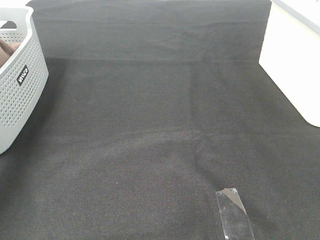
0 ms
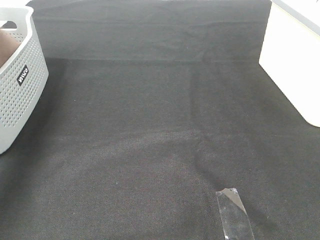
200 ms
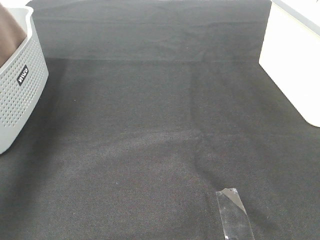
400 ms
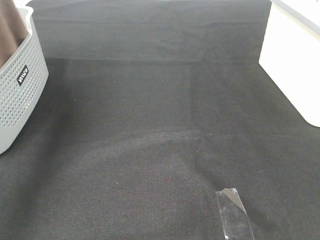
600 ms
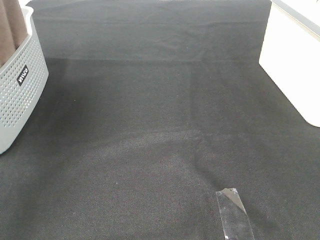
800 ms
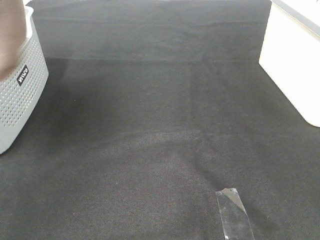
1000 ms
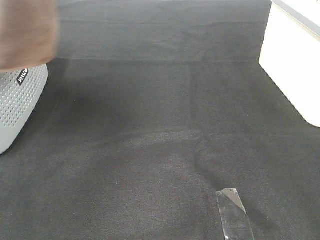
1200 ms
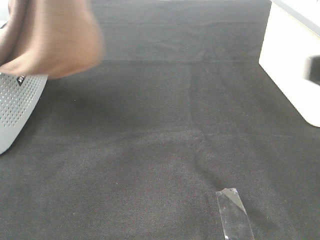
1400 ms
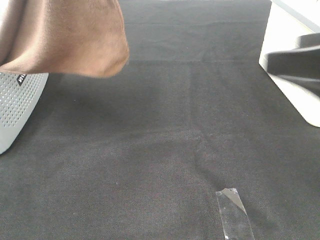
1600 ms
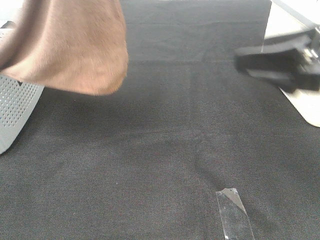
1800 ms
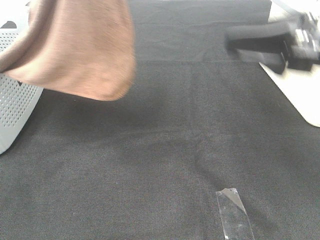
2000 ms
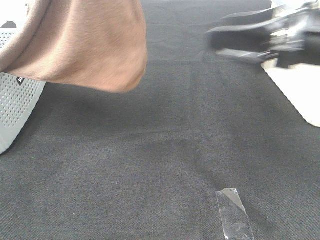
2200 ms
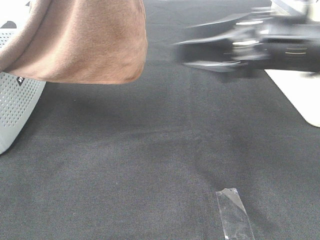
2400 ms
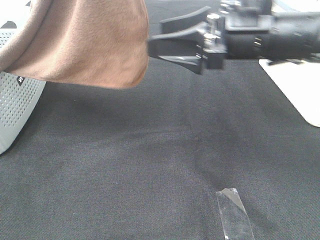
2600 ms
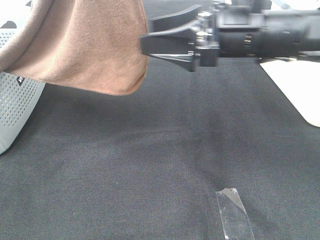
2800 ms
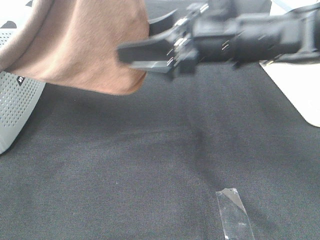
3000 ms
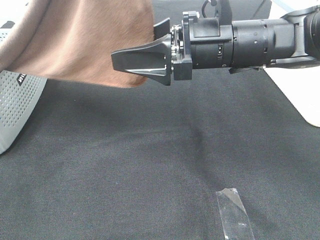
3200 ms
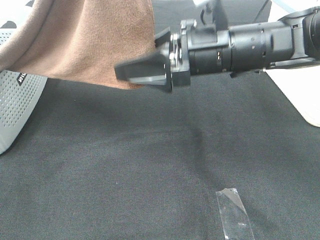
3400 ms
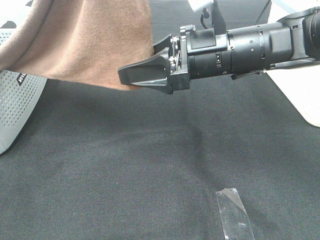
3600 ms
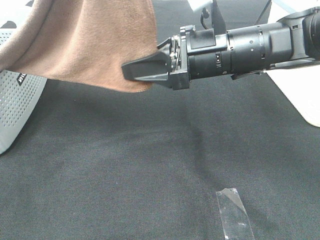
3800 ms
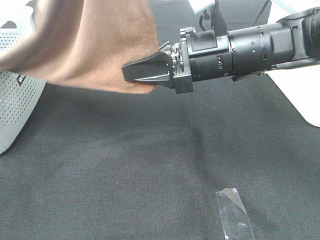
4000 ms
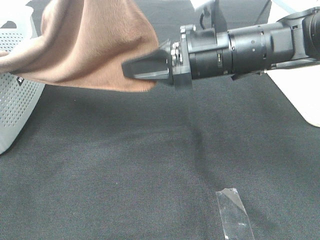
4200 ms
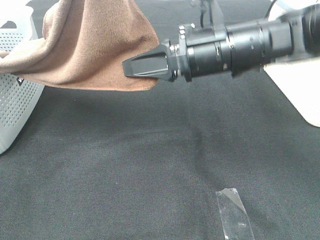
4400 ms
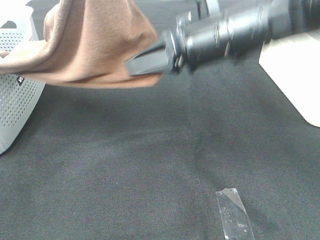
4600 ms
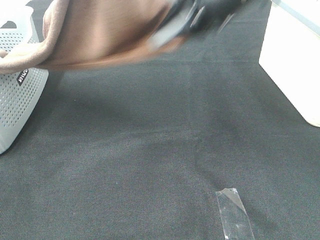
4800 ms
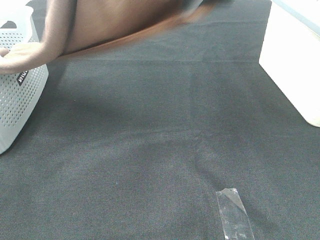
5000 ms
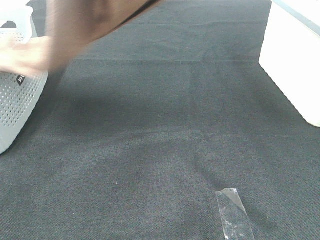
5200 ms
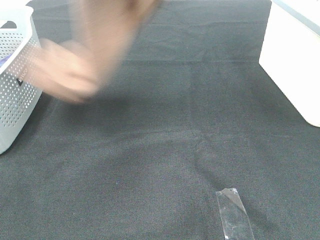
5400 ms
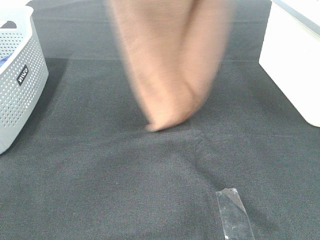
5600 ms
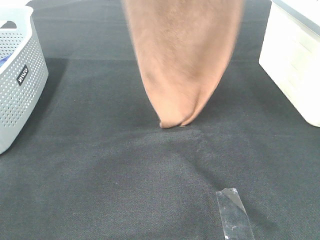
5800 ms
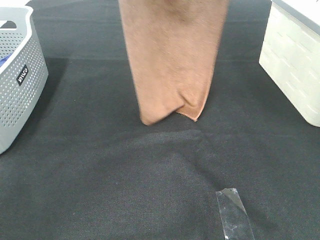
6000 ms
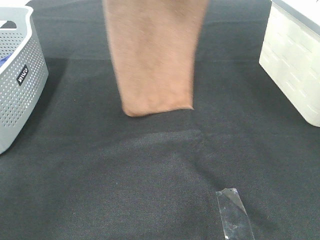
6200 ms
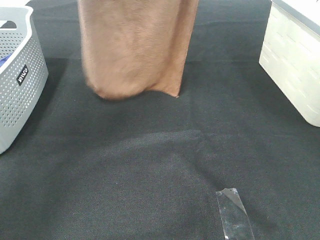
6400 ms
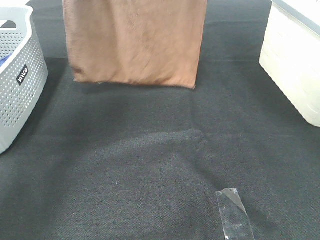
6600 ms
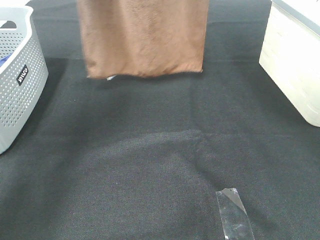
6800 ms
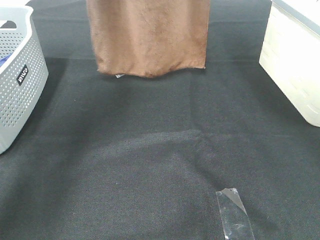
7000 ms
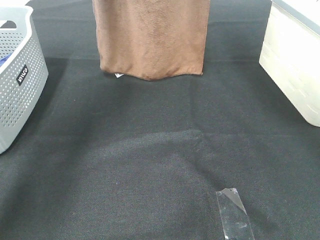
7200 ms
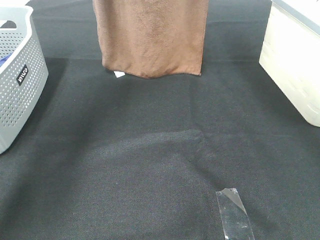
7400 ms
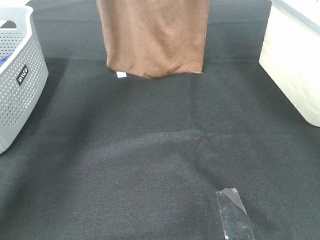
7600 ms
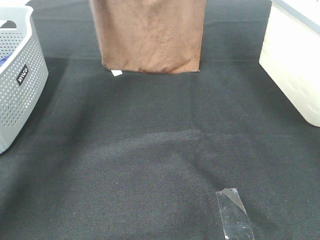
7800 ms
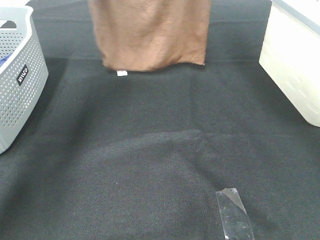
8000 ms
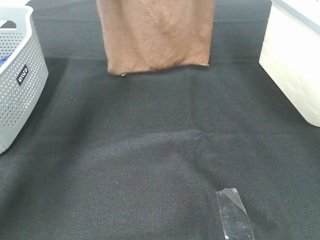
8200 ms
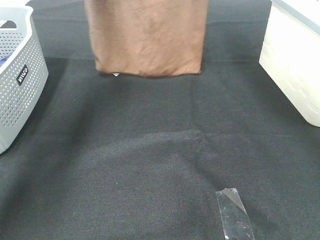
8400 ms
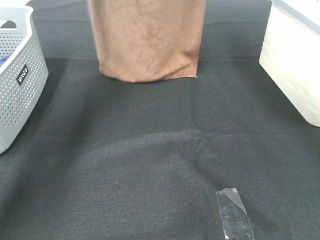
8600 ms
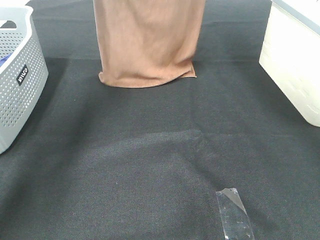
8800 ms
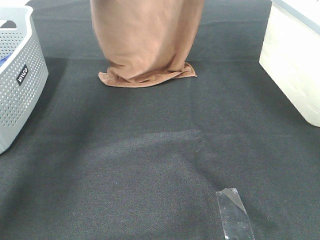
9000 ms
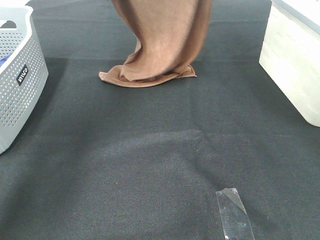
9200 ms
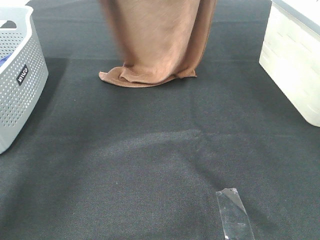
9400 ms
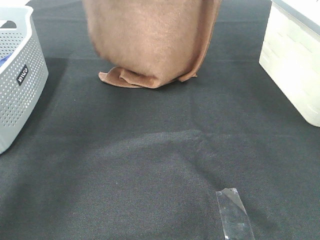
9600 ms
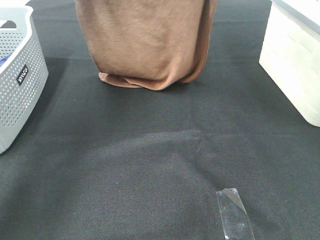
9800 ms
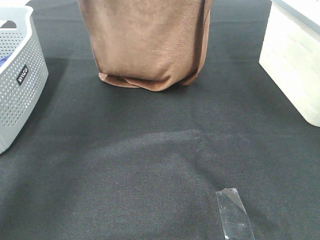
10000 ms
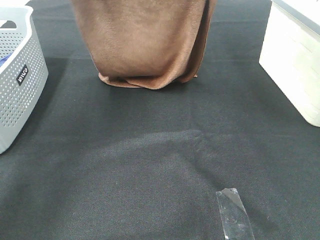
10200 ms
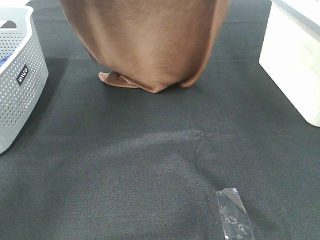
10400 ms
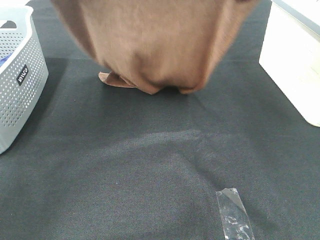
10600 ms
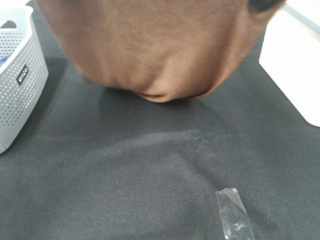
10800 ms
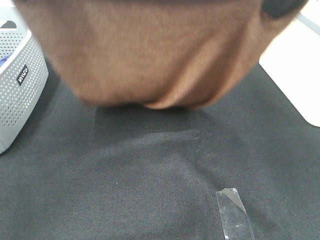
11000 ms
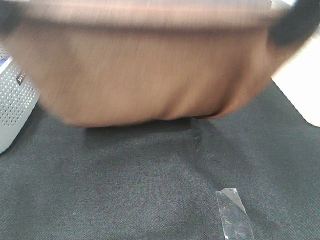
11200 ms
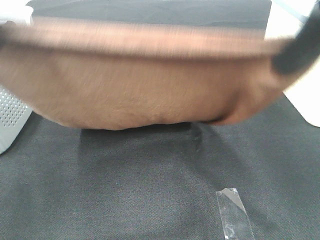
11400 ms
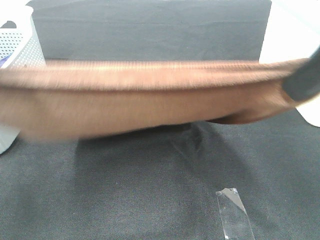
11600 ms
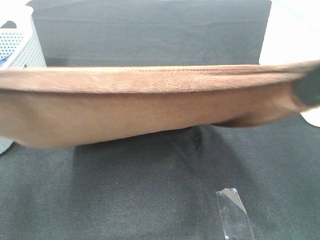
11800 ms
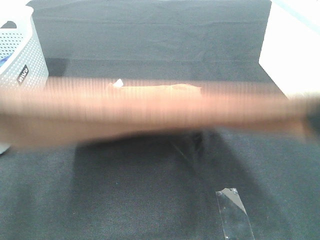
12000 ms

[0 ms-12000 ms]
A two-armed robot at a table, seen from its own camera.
Task of the whole recording: Remove the towel and place it.
Step, 1000 ms to 4200 ms: Right hand: grab a corner of the brown towel and straighten it.
Step, 4400 ms to 11200 ms: Left hand: spread the brown towel flat on the table.
Step, 4400 ms to 11200 ms: Right hand: spread the brown towel flat on the table.
0 ms to 1600 ms: The right gripper goes roughly 15 cm forward, while the left gripper shifts some 30 cm to the right, upward and backward.
1600 ms to 3000 ms: The right gripper moves to the left and forward, roughly 20 cm.
3000 ms to 4400 ms: The right gripper closes.
4400 ms to 6000 ms: The left gripper travels forward by about 10 cm; the right gripper shifts approximately 30 cm upward.
6000 ms to 7600 ms: The left gripper heads forward, covering some 15 cm. Meanwhile the right gripper goes about 10 cm forward.
9000 ms to 10400 ms: The two grippers go approximately 15 cm backward.
10400 ms to 12000 ms: The two grippers go some 25 cm backward.

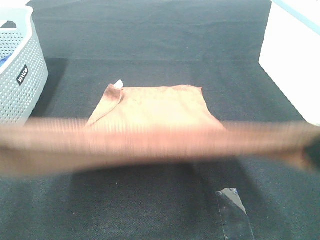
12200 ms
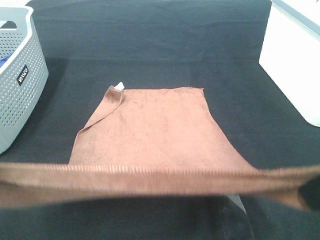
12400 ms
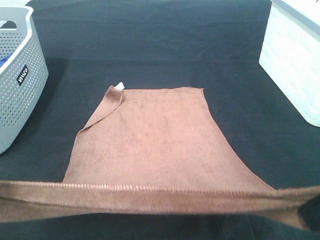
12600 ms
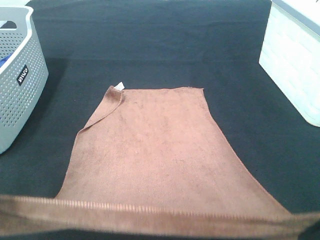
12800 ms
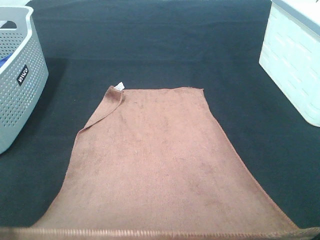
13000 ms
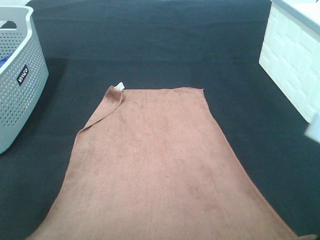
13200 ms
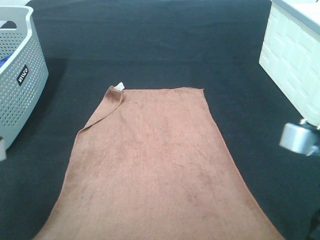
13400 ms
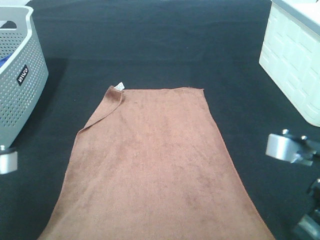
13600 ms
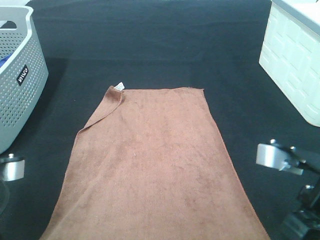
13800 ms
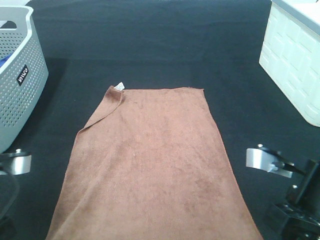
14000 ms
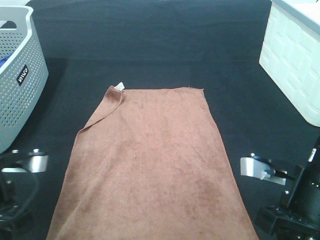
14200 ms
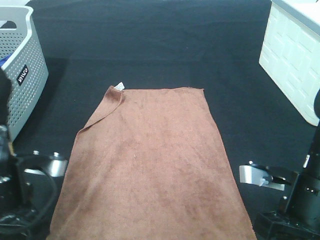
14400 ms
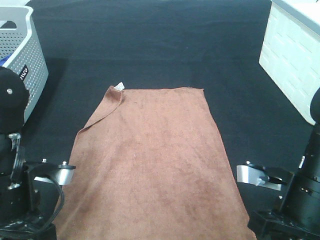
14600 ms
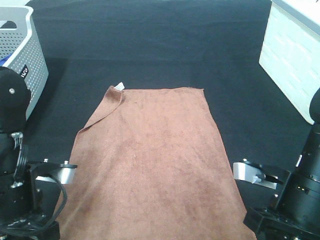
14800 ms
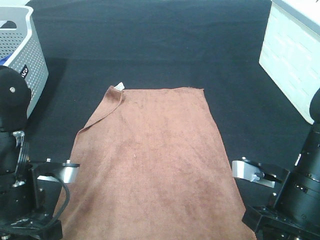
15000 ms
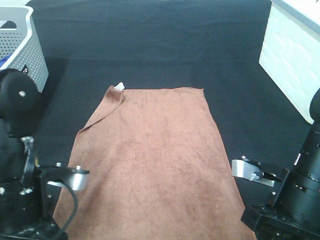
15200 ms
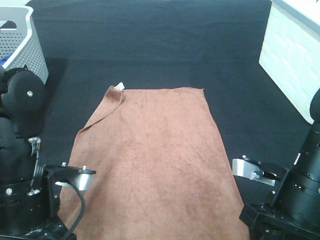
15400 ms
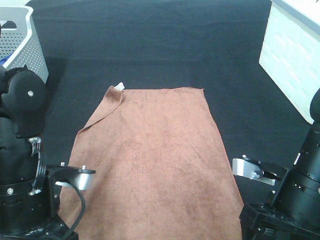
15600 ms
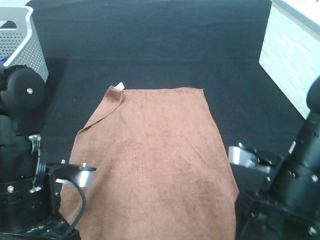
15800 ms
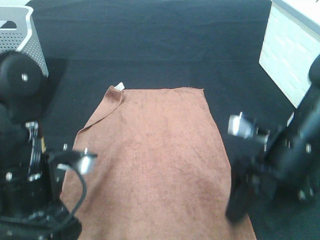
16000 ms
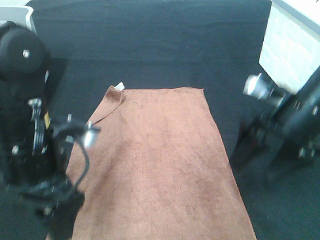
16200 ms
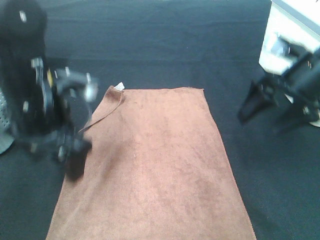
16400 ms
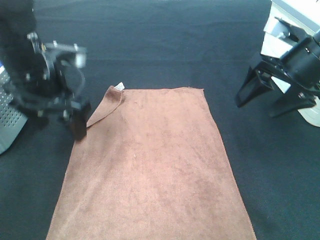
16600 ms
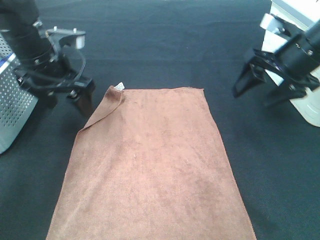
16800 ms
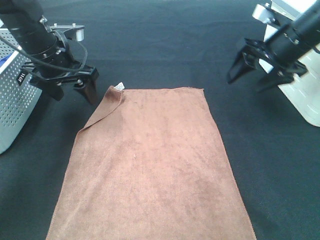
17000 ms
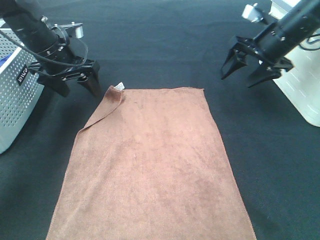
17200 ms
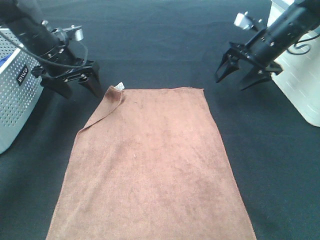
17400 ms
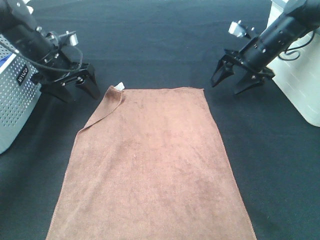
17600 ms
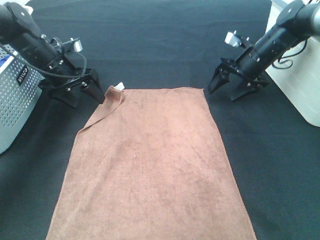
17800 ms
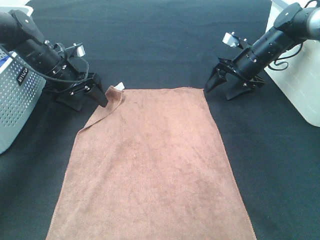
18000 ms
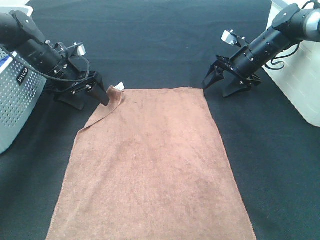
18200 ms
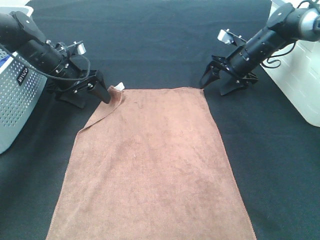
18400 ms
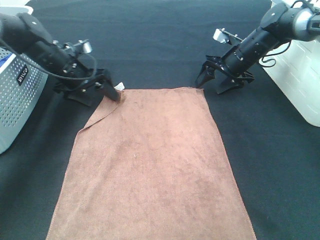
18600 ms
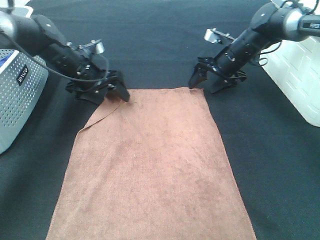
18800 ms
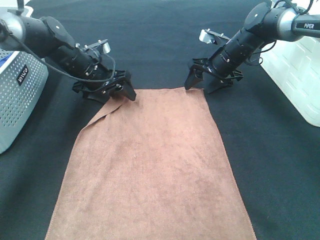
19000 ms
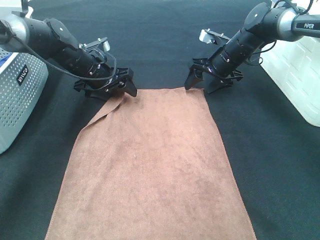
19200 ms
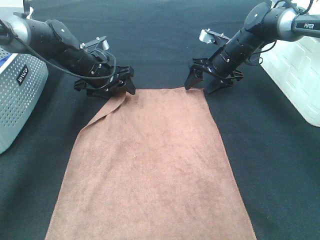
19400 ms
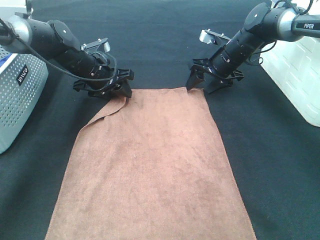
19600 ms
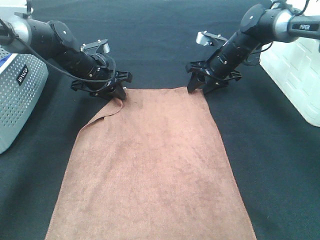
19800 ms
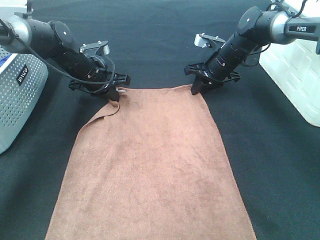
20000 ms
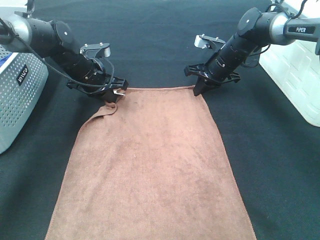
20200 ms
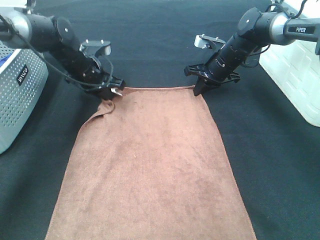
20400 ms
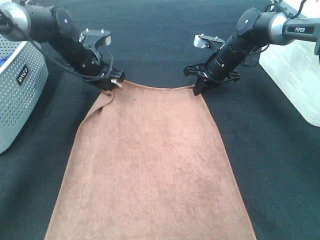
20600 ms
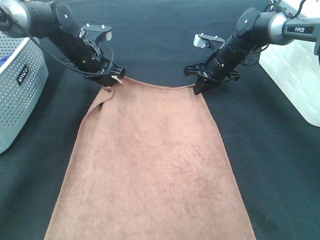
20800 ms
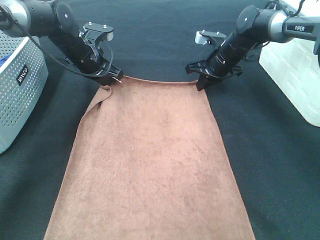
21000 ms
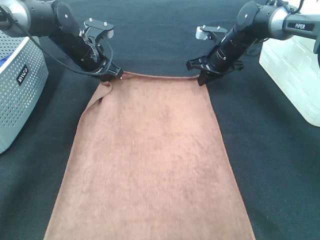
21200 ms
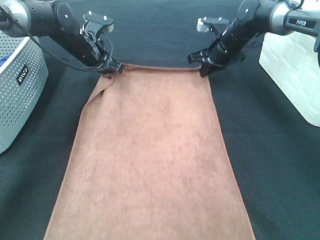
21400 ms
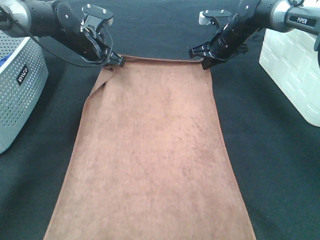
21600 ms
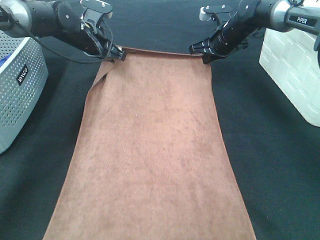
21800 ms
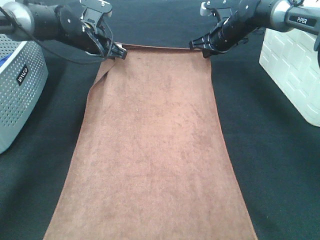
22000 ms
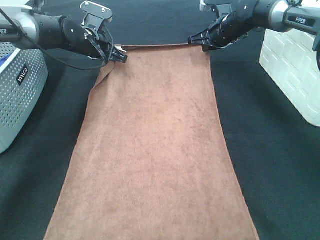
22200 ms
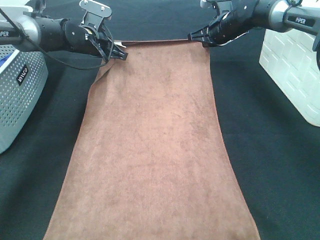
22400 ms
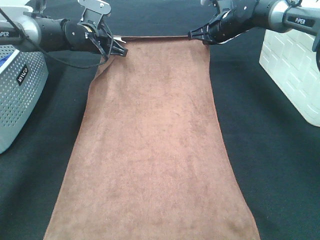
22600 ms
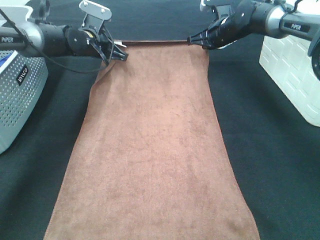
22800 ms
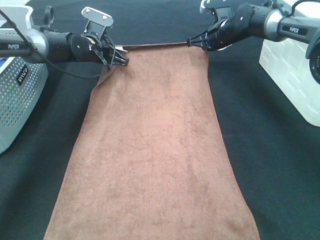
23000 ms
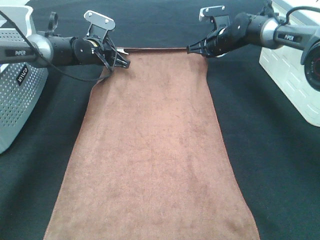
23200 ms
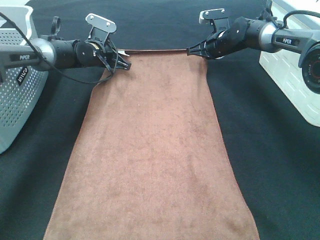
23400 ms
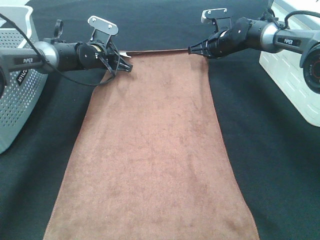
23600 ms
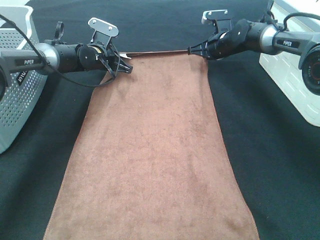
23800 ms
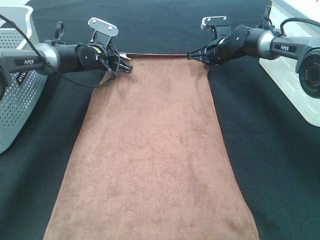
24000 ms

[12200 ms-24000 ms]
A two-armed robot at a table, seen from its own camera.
Task of the whole recording: Remove the towel and place it.
Step, 12200 ms to 19800 ms: Right hand:adjust the brown towel.
12200 ms to 13600 ms: The grippers both shift downward by roughly 15 cm.
13600 ms to 15200 ms: The left gripper goes about 5 cm to the right. Meanwhile the right gripper shifts approximately 5 cm downward.
15200 ms to 16600 ms: Both grippers travel together forward and upward, some 20 cm. The right gripper opens. Meanwhile the left gripper opens.
16600 ms to 18200 ms: Both grippers move forward and downward, about 20 cm.
18200 ms to 19600 ms: The right gripper is displaced to the left by some 5 cm; the left gripper travels to the right by some 5 cm.
19600 ms to 21000 ms: The left gripper closes its fingers. The right gripper closes.
21000 ms to 22600 ms: The right gripper moves upward, roughly 5 cm.
22600 ms to 24000 ms: The two grippers go some 5 cm downward.
